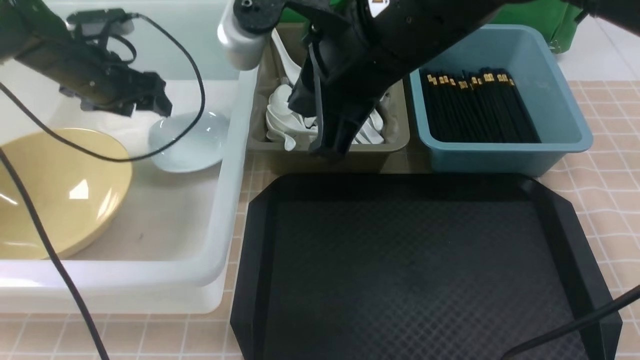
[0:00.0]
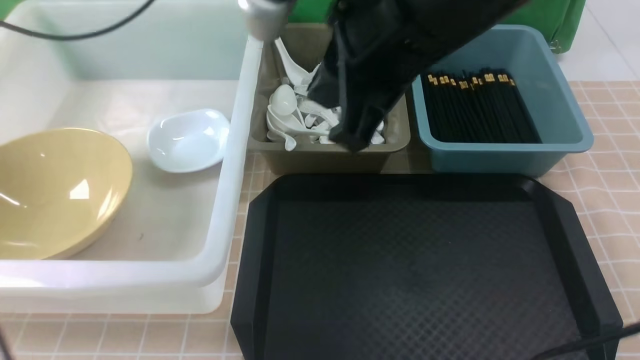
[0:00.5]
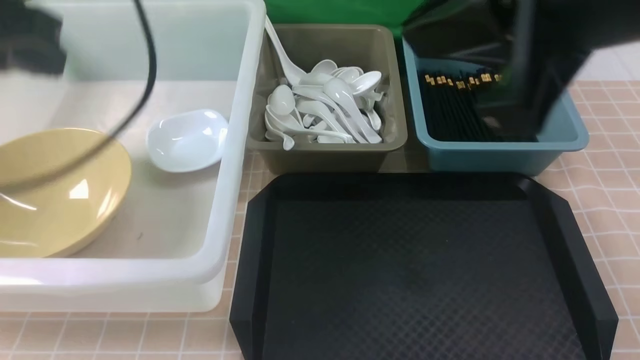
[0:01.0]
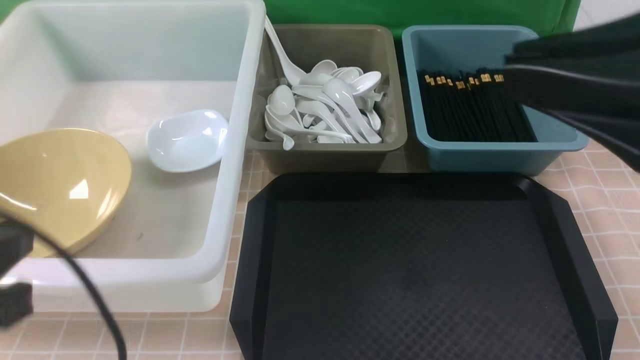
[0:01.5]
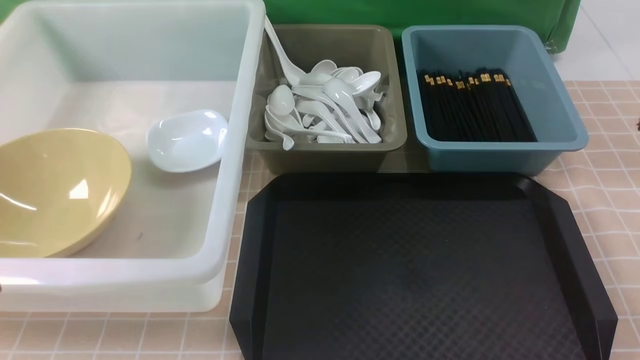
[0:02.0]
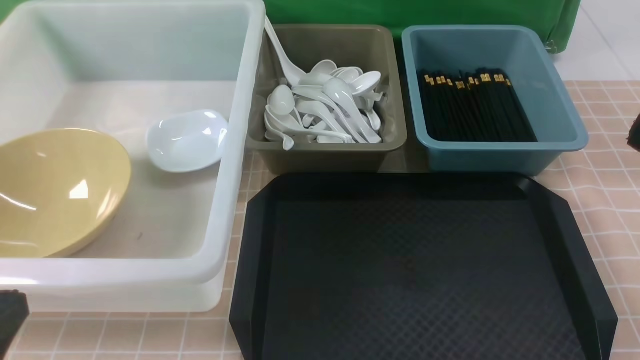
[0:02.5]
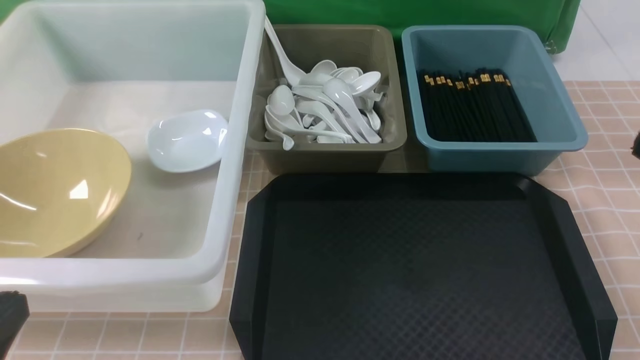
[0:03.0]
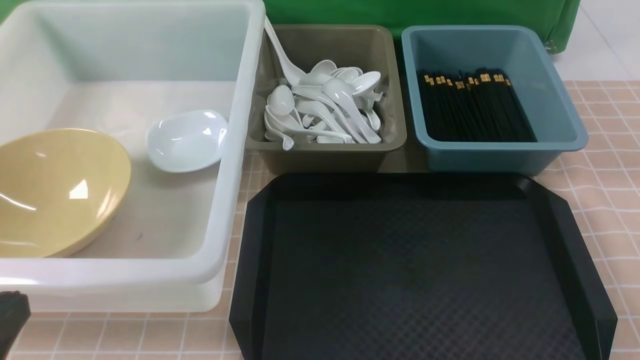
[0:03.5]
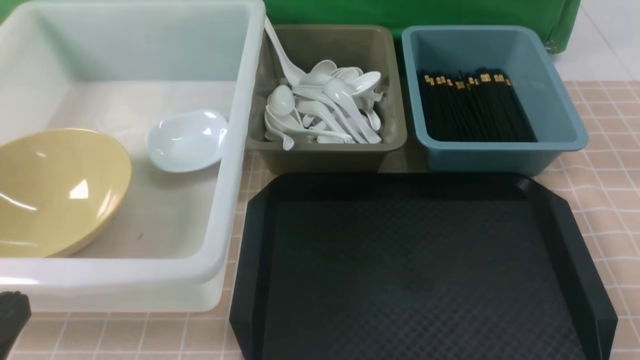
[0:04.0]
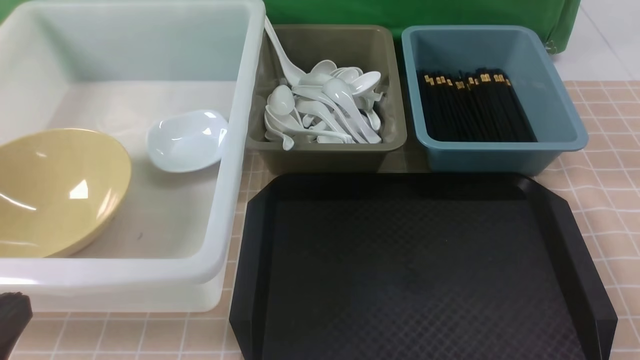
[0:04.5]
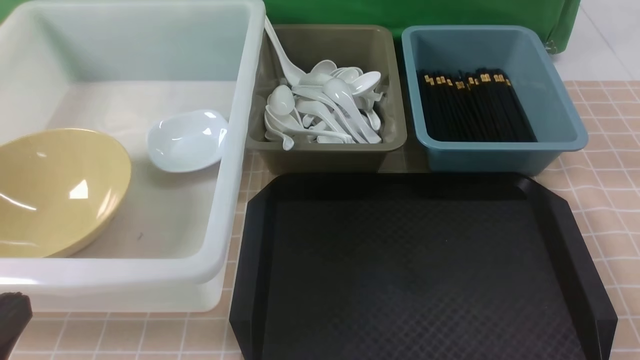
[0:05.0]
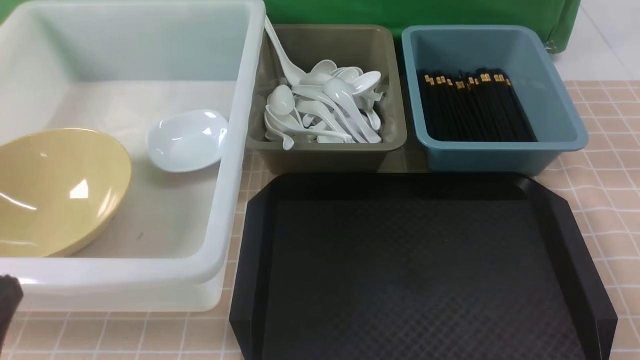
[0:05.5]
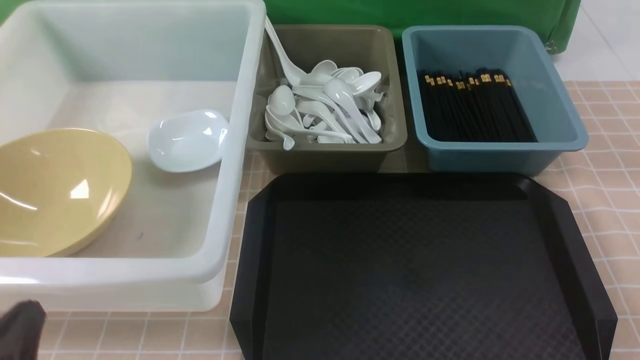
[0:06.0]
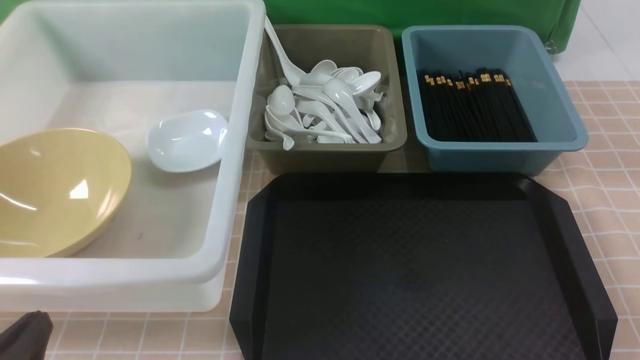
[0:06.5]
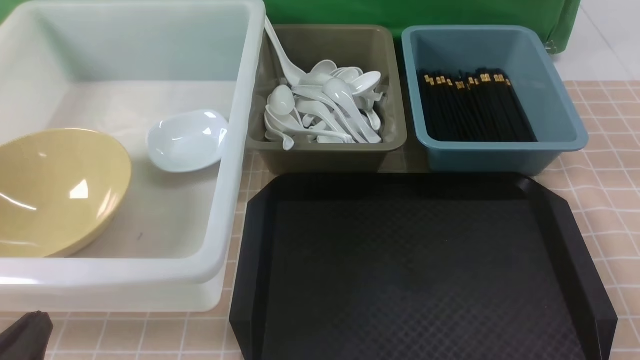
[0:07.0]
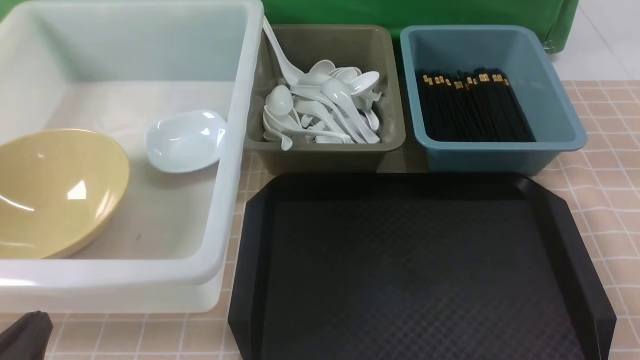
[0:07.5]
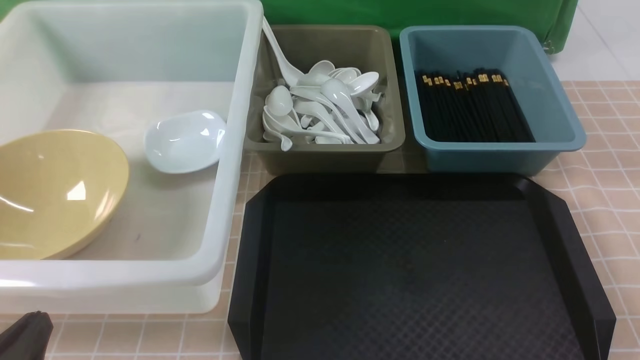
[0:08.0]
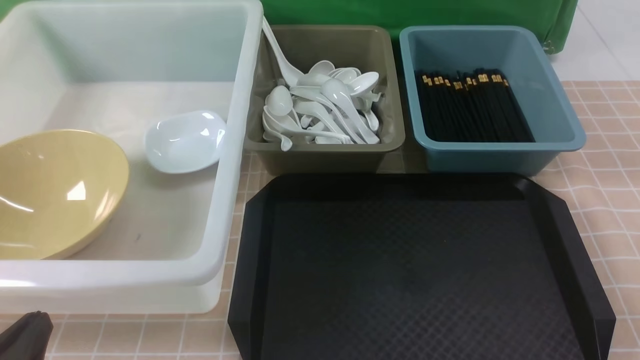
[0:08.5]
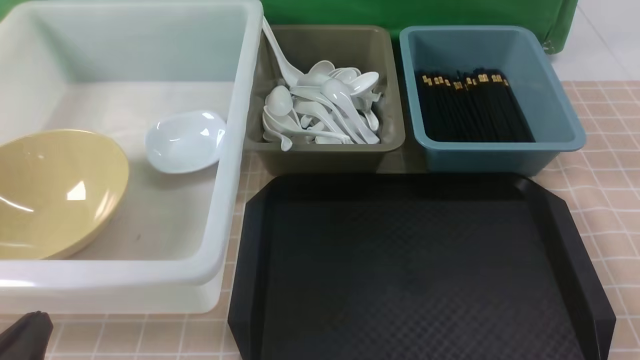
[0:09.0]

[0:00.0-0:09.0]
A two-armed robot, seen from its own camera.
Task of the whole recording: on brown table put chopsticks spoon bowls plates into blue grey white boxes.
0:00.0 to 0:02.0: The right gripper shifts roughly 25 cm to the right and backward; the left gripper is displaced backward by roughly 40 cm, and closes.
0:04.5 to 0:07.0: The left gripper goes some 10 cm downward.
0:07.0 to 0:09.0: The two grippers keep their place.
